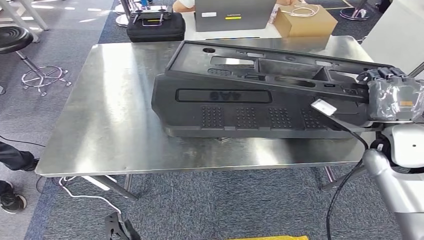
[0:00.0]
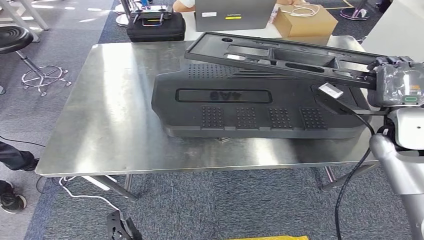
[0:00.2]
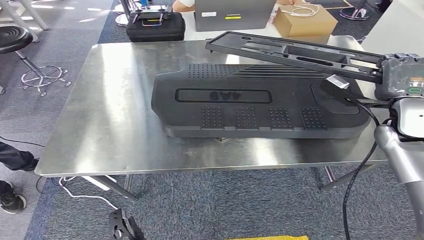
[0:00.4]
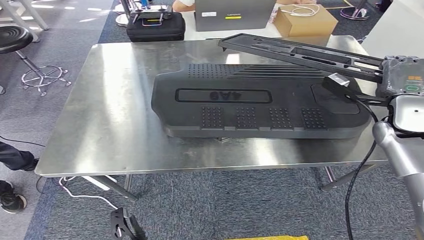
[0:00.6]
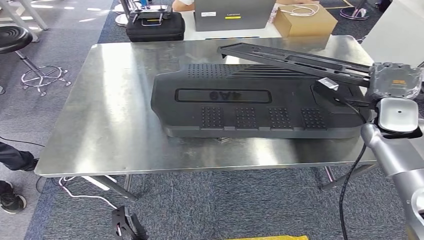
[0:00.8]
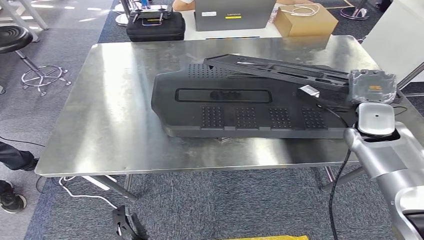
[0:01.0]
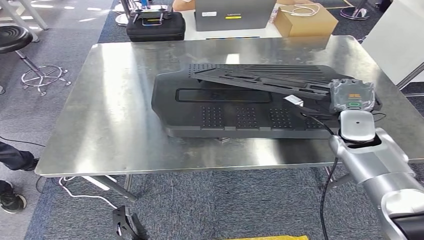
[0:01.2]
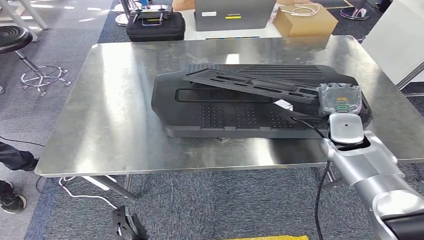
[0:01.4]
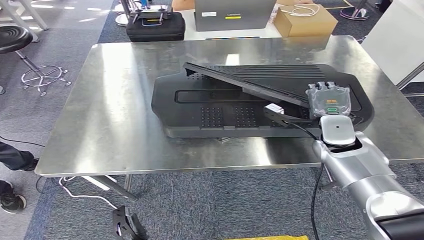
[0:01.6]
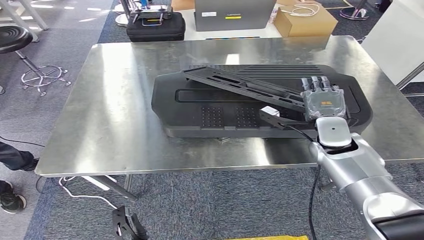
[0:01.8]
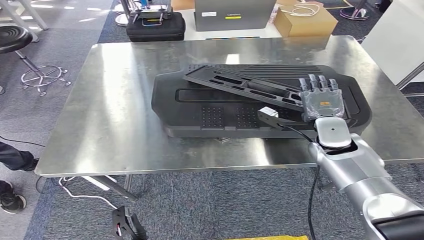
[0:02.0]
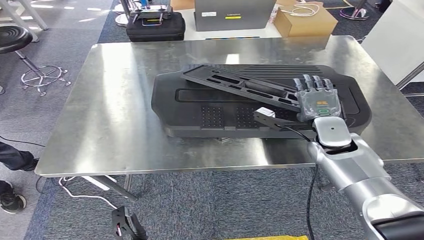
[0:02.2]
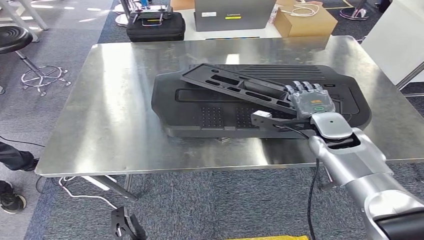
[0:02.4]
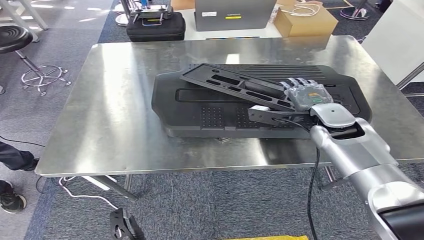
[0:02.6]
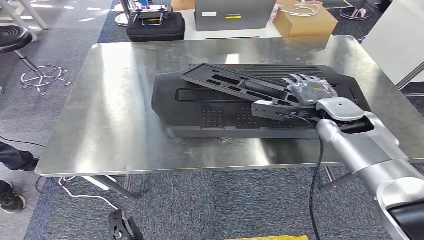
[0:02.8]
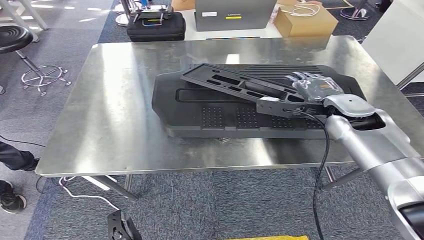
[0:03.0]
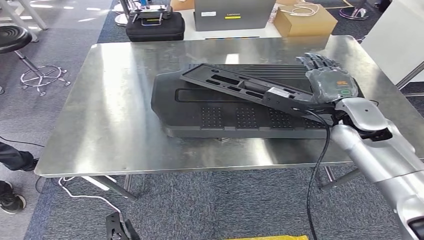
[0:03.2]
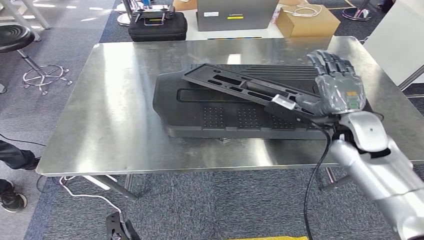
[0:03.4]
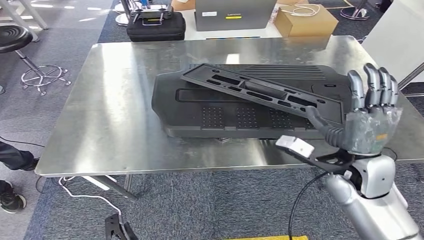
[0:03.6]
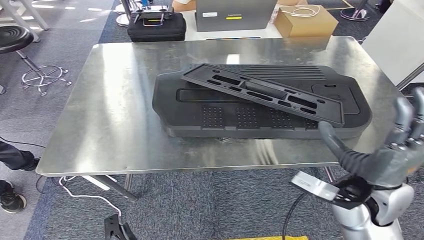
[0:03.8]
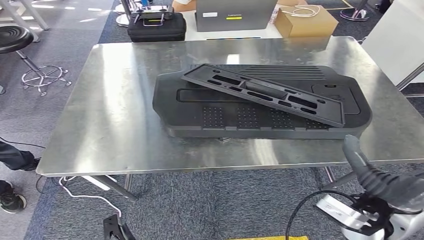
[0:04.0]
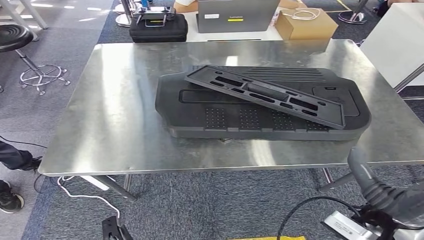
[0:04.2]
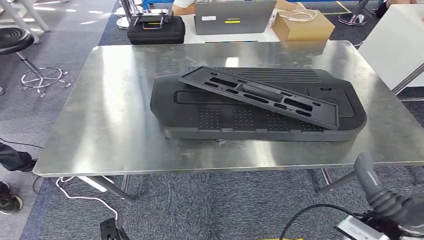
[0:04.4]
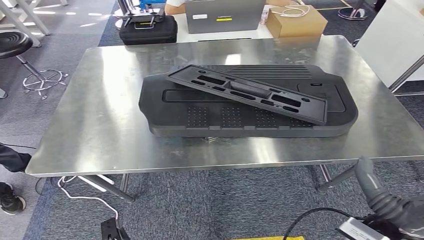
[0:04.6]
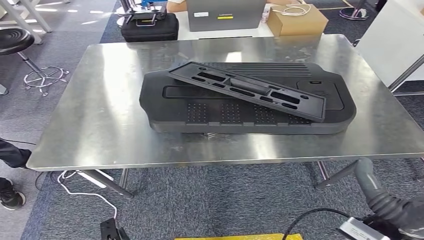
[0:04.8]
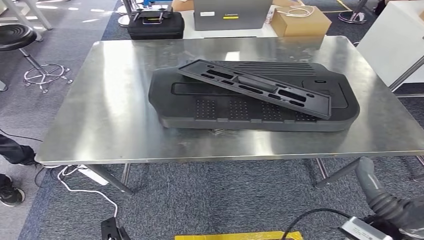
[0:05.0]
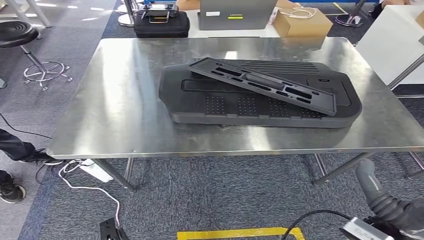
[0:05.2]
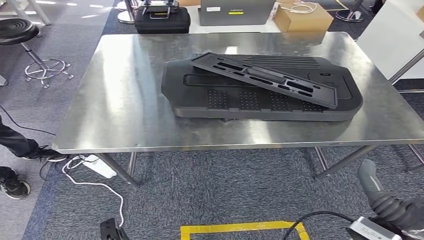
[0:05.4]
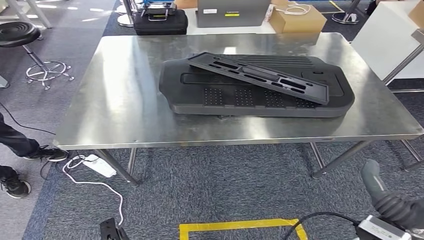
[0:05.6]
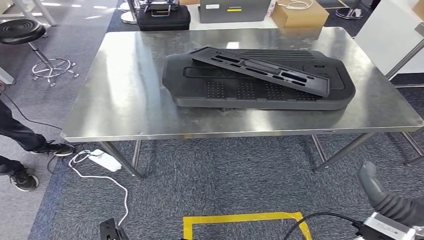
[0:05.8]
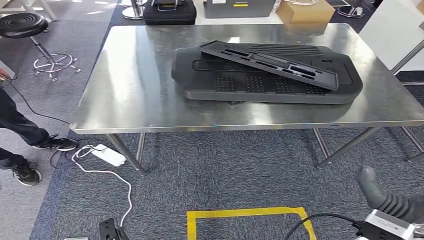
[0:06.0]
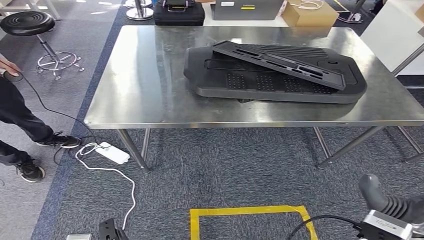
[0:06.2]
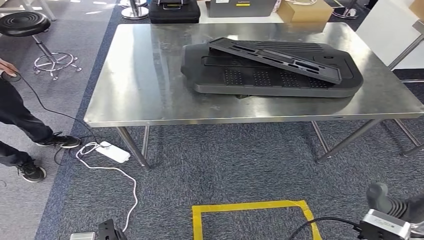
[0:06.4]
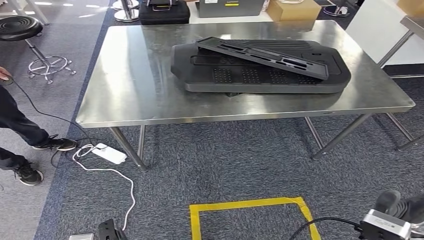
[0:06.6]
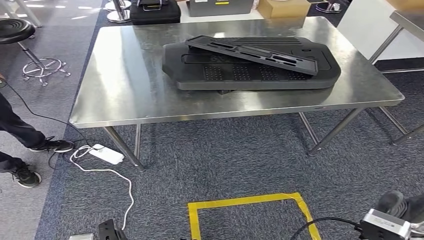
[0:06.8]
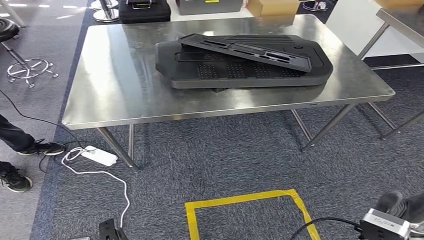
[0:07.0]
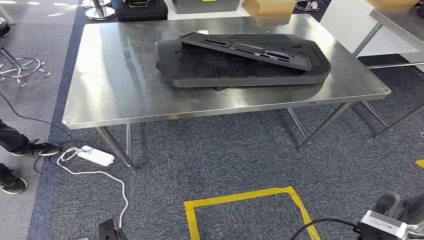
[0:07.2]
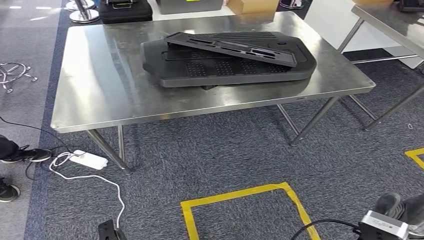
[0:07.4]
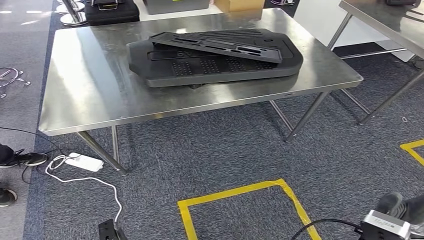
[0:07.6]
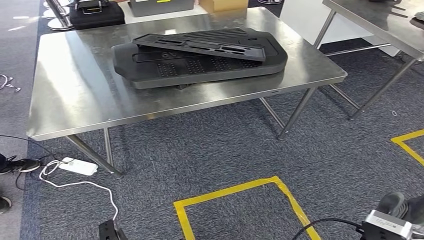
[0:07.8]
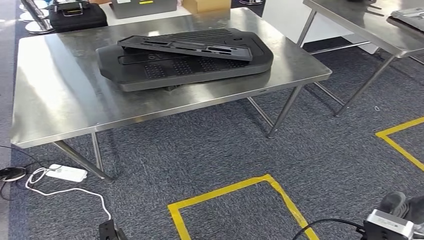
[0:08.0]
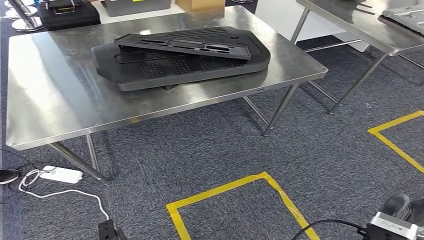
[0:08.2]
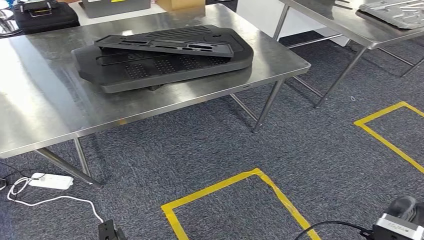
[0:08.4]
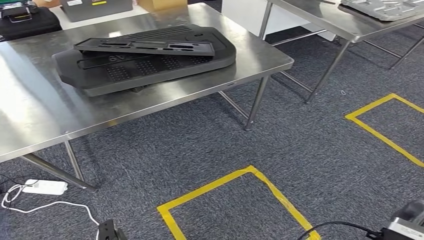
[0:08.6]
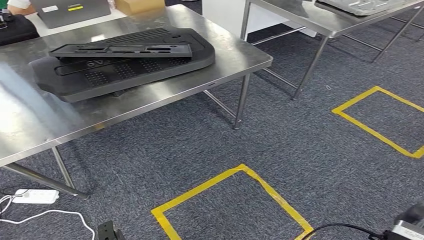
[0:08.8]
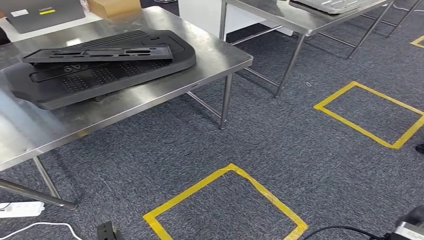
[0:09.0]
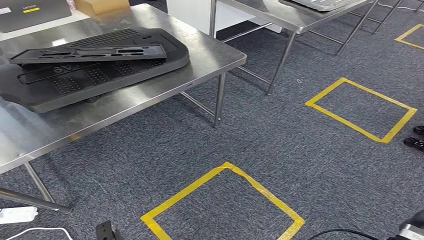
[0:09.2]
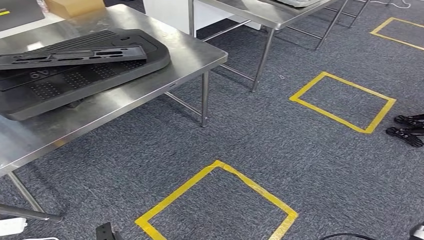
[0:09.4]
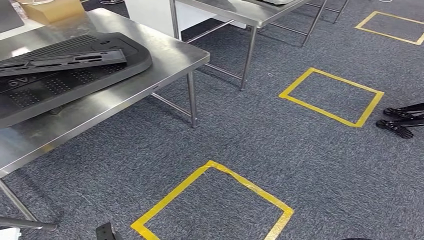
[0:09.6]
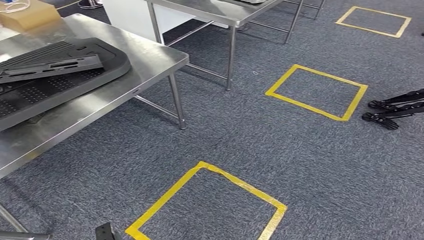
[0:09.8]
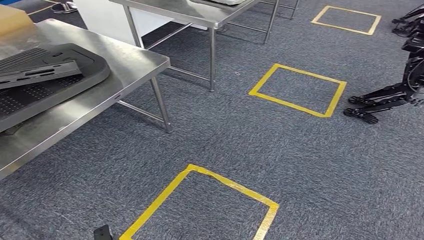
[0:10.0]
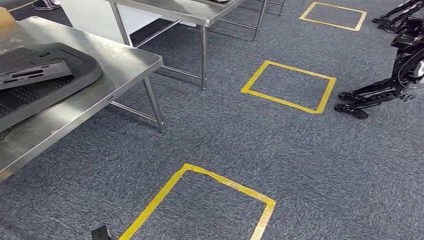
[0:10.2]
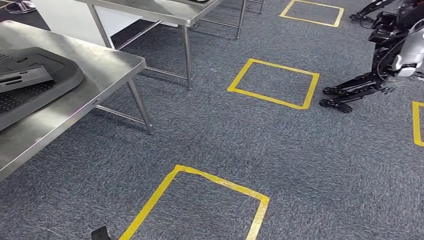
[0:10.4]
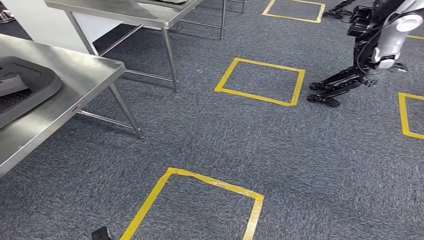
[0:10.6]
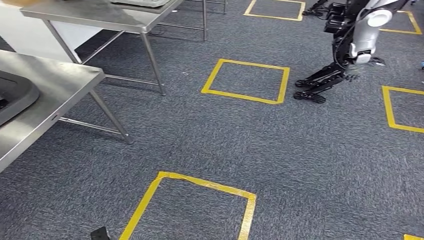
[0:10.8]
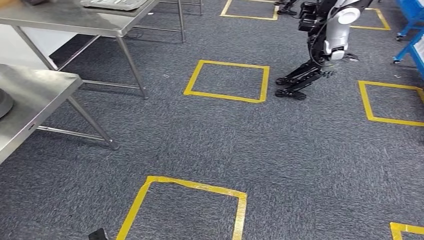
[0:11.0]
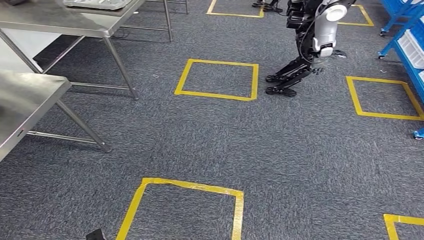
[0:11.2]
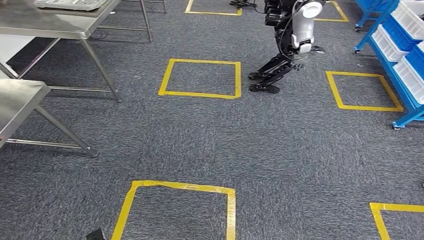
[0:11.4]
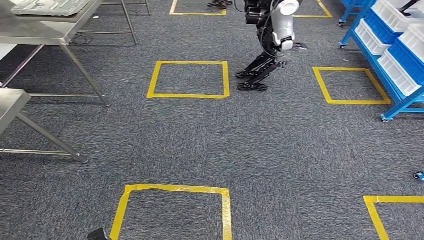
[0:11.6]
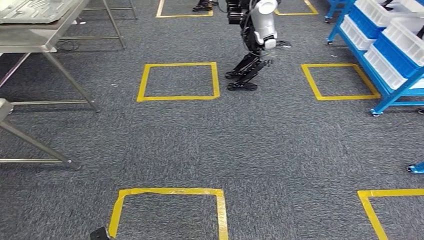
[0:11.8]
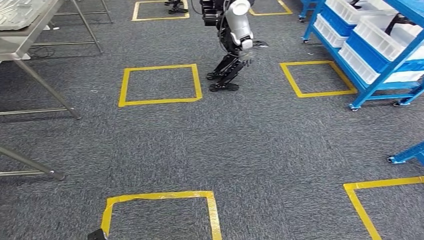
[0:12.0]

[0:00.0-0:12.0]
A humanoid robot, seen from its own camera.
Step, 0:00.0 to 0:02.4: Insert the large material into the corresponding slot on the workbench.
0:01.6 to 0:03.0: The right hand shifts about 10 cm upward.

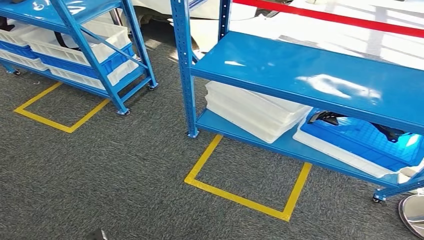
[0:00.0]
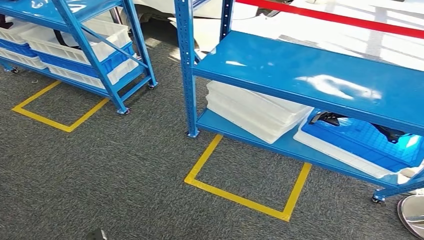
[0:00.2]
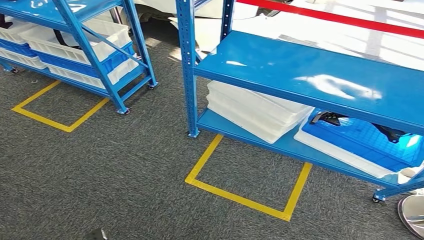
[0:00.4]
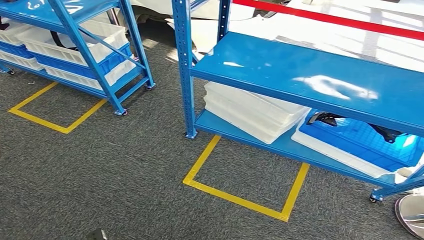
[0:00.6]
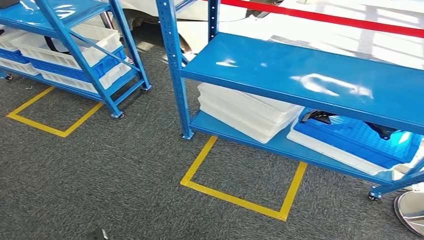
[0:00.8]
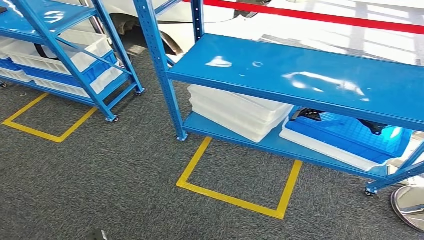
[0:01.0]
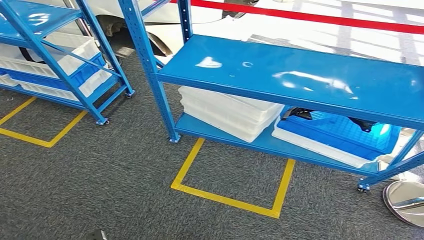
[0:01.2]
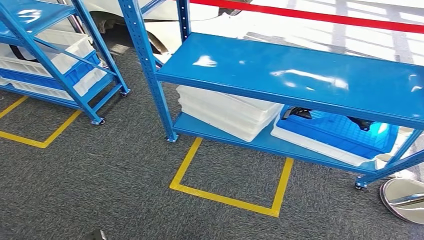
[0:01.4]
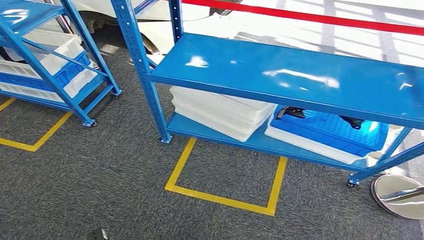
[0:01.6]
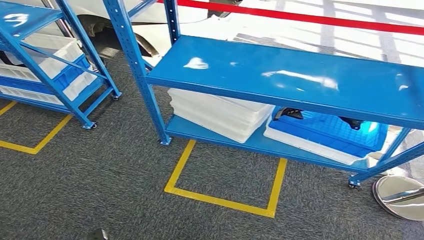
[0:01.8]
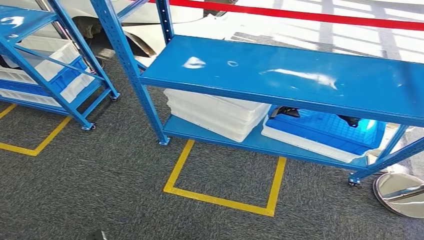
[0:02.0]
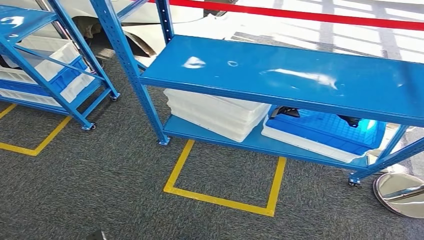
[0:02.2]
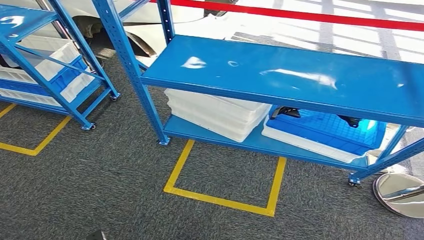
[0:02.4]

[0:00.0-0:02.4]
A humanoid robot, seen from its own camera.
Step, 0:00.0 to 0:02.4: Move to the initial position of the shelf.
